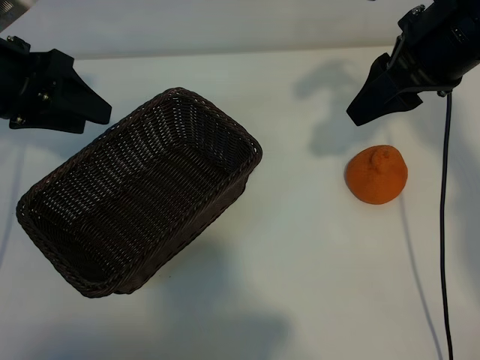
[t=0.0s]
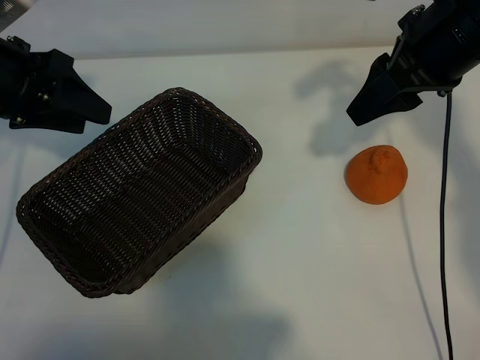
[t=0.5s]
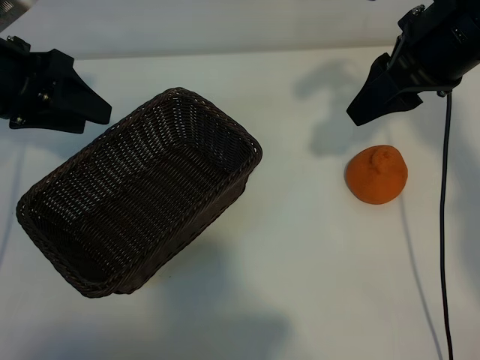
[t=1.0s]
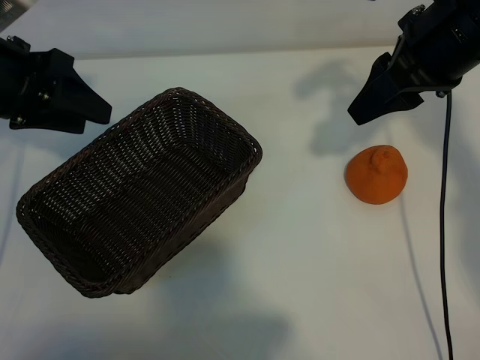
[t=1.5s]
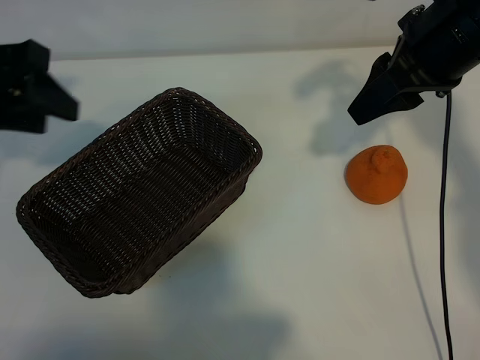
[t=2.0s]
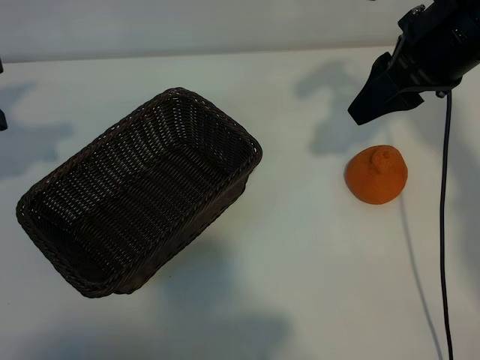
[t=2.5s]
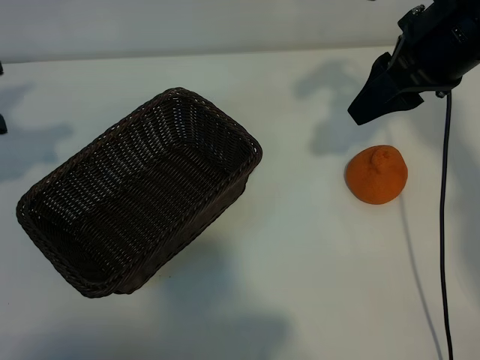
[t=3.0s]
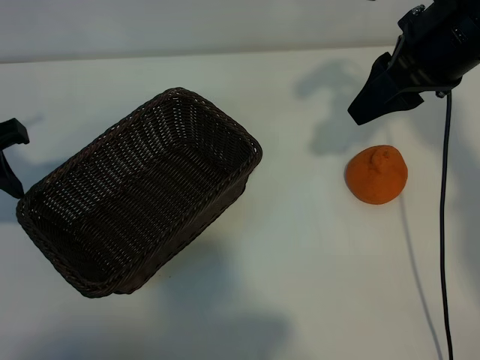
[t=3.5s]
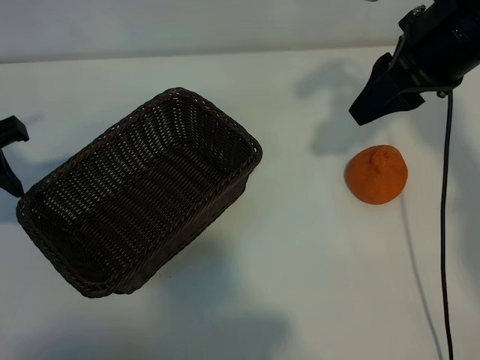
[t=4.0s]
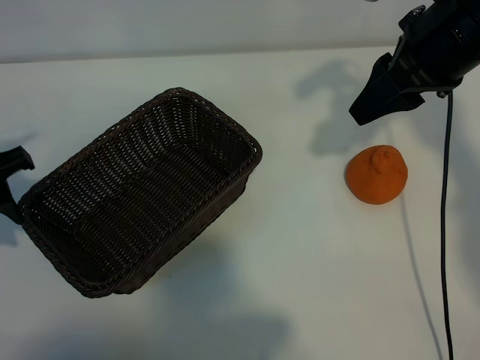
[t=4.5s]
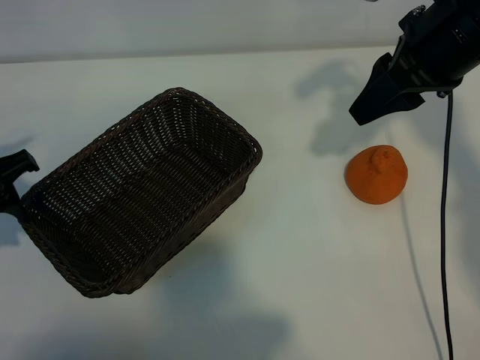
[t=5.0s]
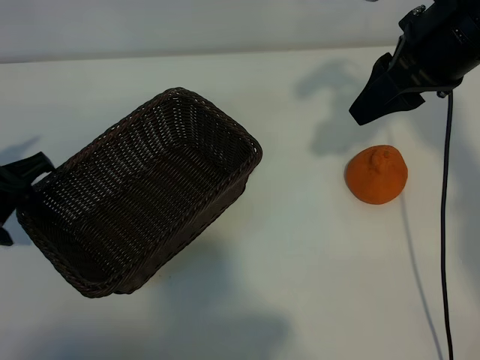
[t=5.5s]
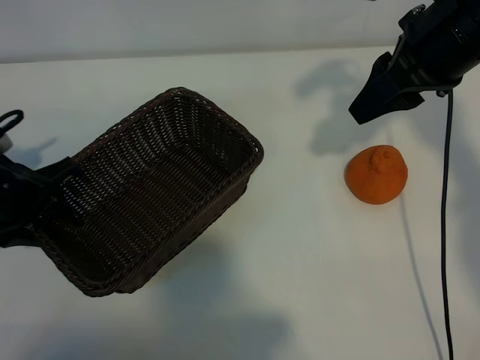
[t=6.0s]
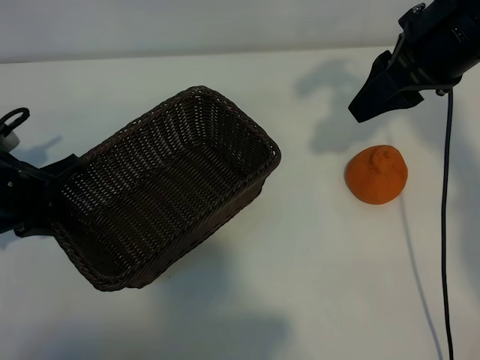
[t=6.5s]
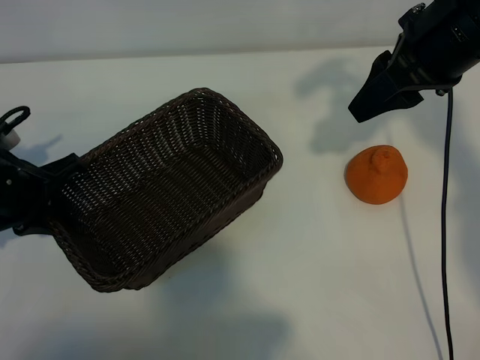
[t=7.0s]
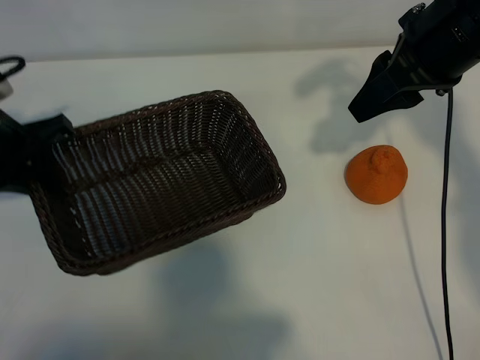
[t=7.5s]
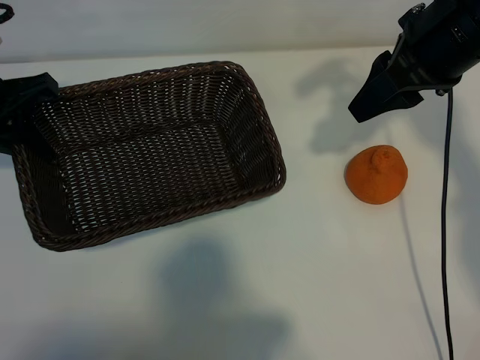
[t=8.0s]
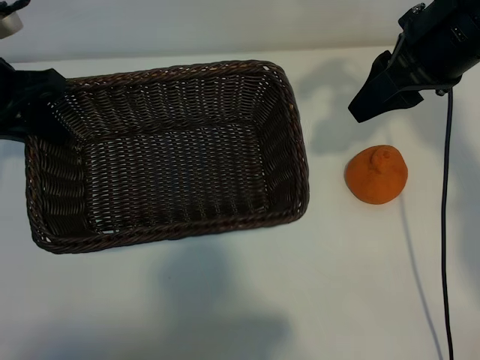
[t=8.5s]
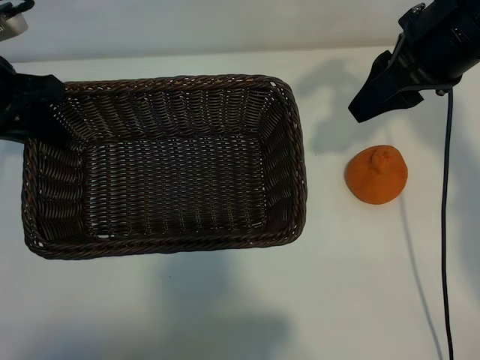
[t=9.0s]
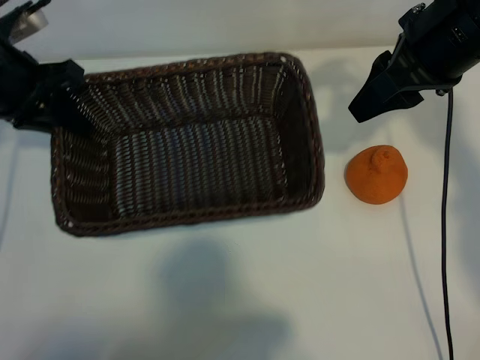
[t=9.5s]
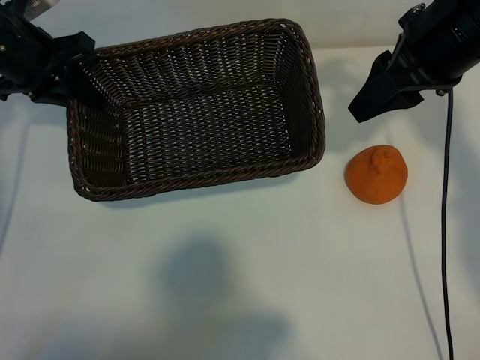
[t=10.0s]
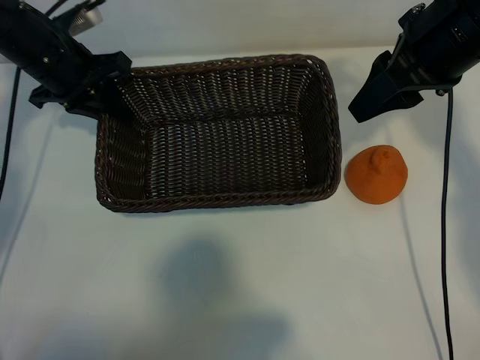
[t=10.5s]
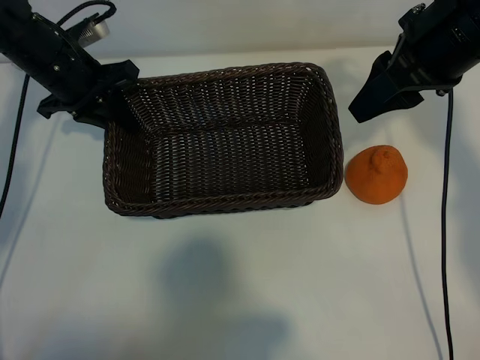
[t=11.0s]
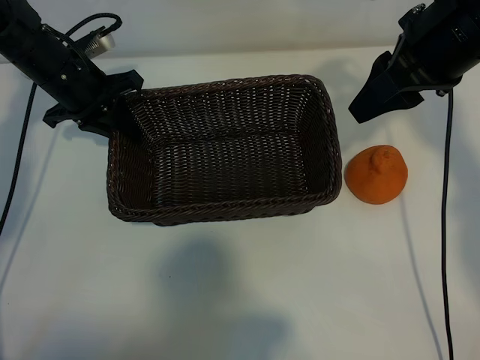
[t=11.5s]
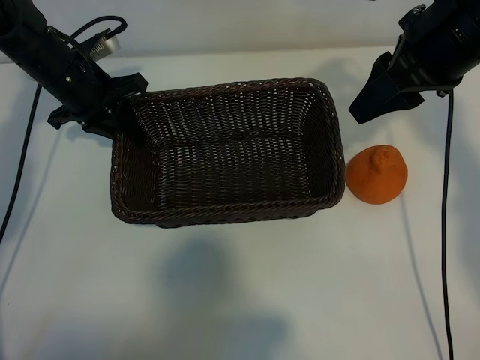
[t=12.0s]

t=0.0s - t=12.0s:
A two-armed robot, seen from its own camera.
Task of the whole recording: pick up the orange and put it into the basket.
Step, t=1.0s - t=6.0s: Grasp the basket with left gripper.

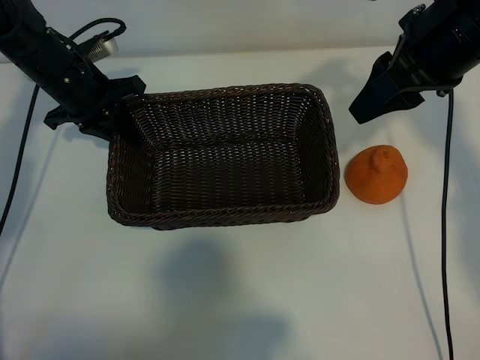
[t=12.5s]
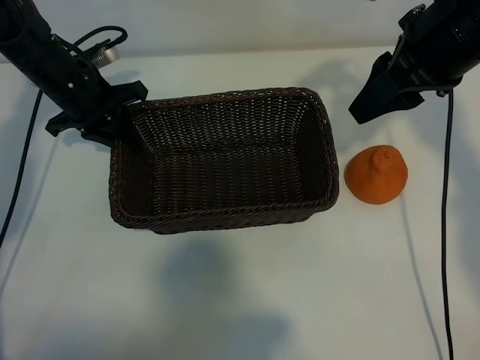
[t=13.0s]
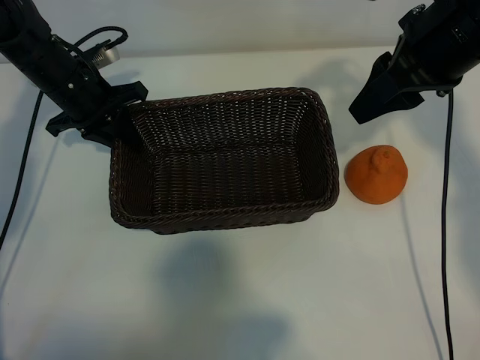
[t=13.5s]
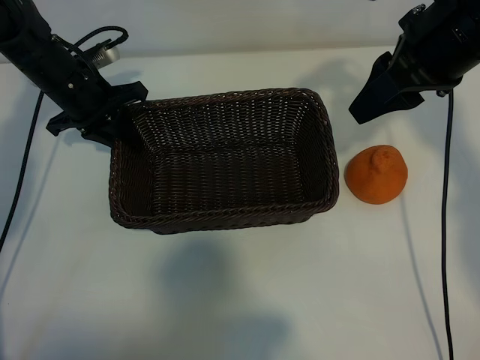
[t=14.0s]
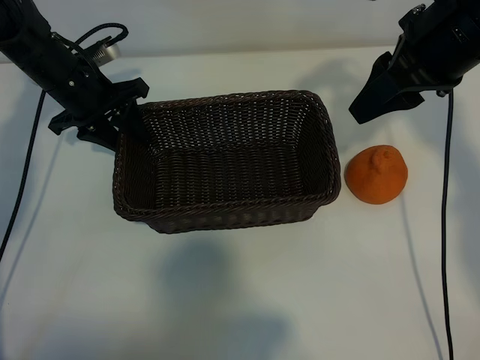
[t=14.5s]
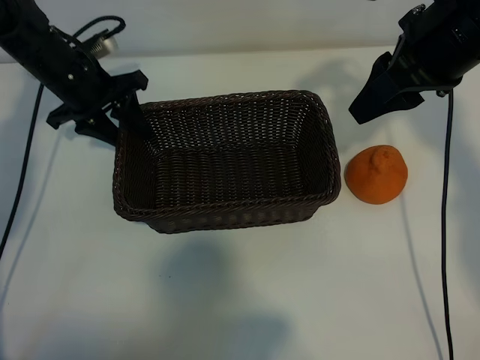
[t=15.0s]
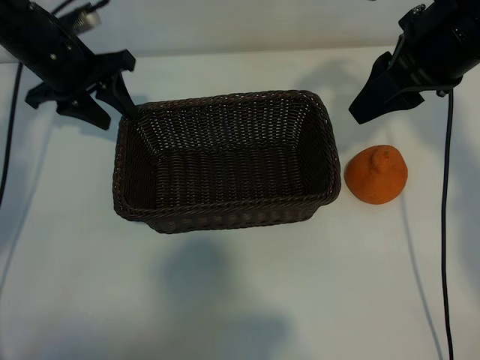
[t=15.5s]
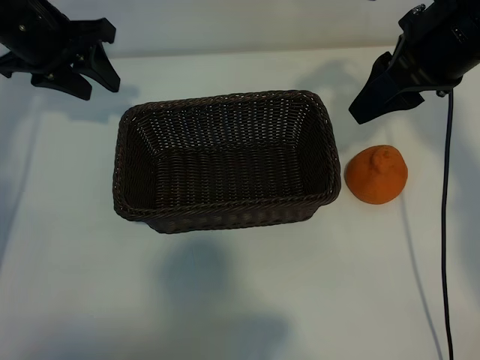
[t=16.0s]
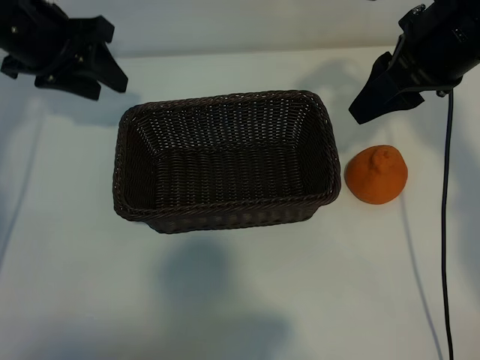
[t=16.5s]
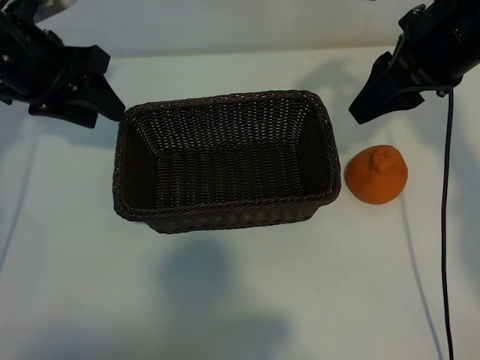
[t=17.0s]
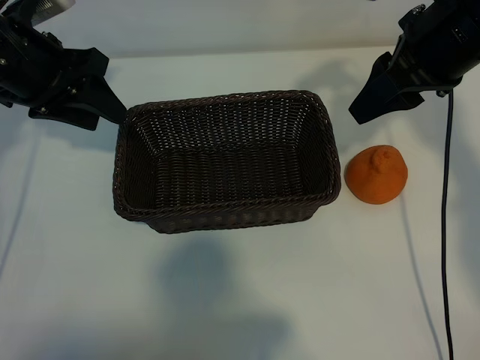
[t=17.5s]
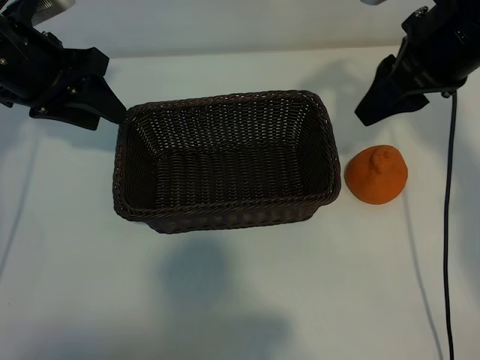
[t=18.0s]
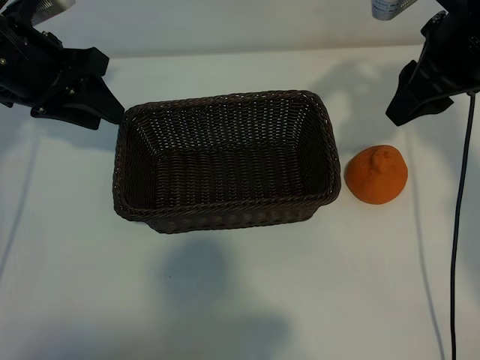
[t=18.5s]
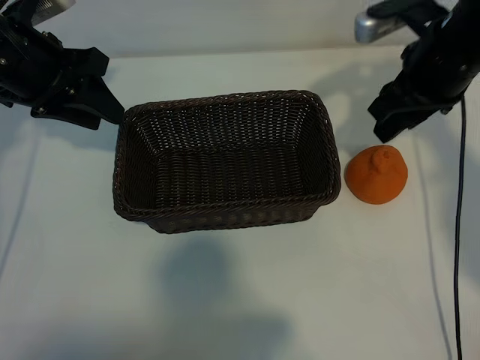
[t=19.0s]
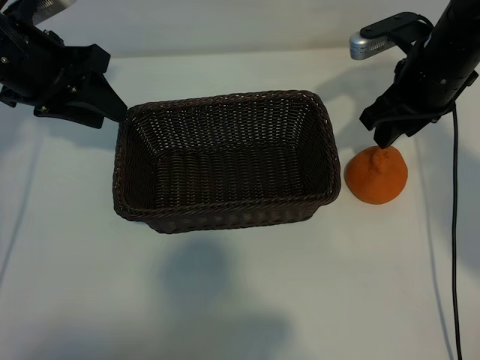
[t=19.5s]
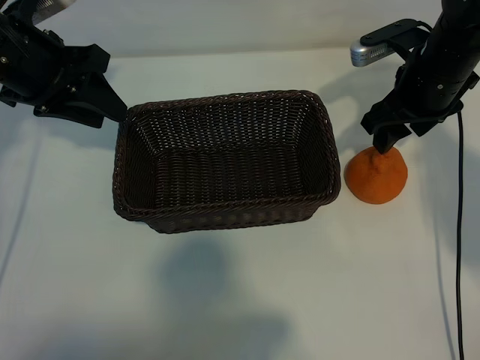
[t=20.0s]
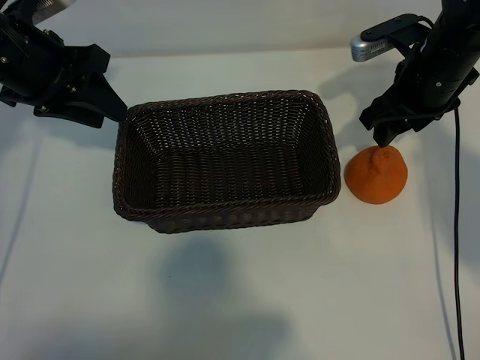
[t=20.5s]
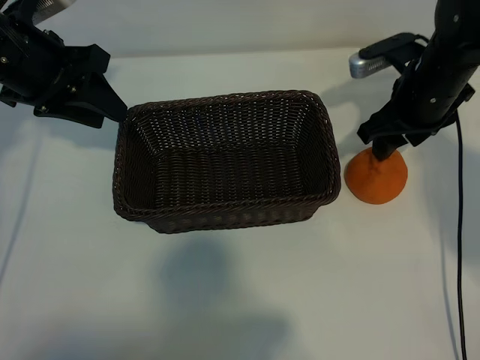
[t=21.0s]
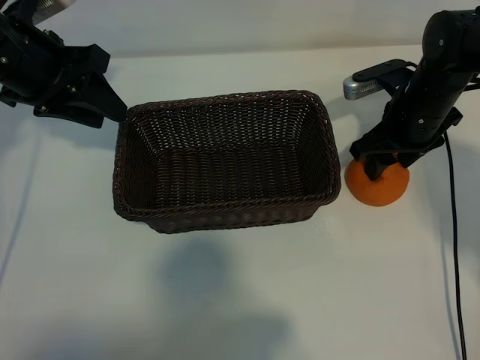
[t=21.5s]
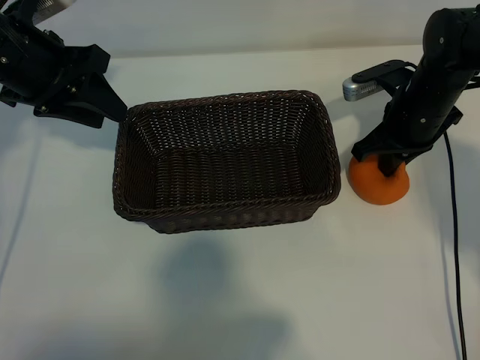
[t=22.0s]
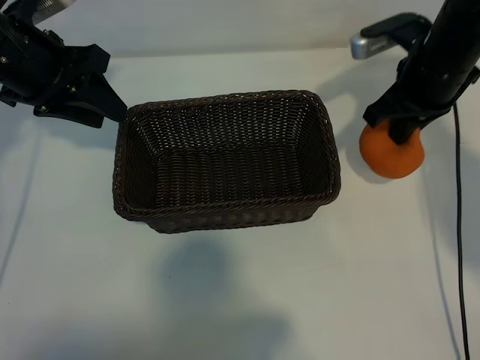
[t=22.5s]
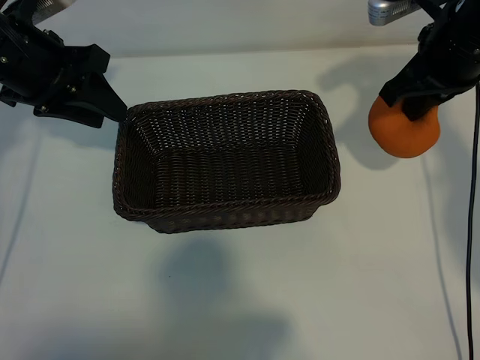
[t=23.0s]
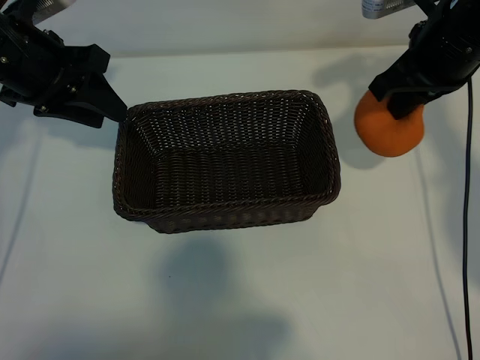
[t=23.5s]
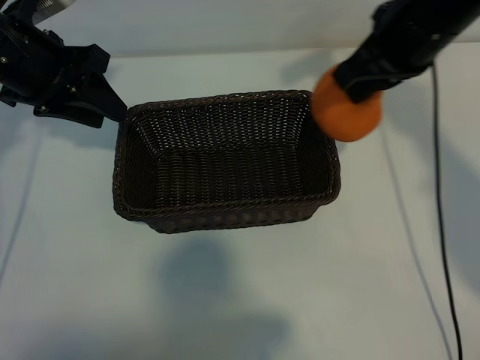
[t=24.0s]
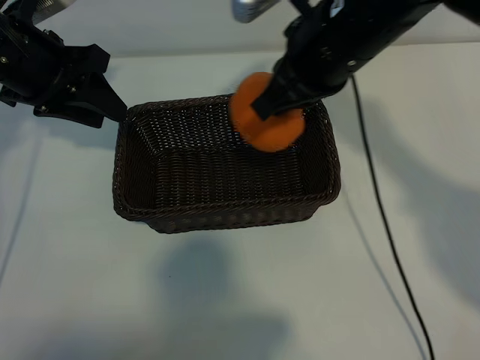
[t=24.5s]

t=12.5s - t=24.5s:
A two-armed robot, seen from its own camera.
Task of the whole recording: pick up the orange and put it into the basket.
Step, t=12.5s - t=14.5s: Place the basket in the center of view with left gripper.
Step, t=15.0s - t=22.0s: Grasp the orange with right gripper.
